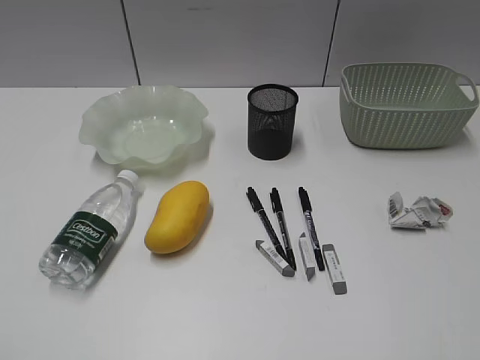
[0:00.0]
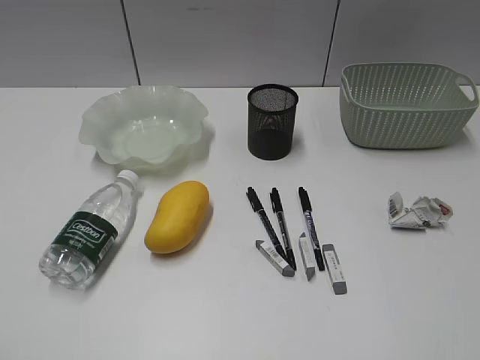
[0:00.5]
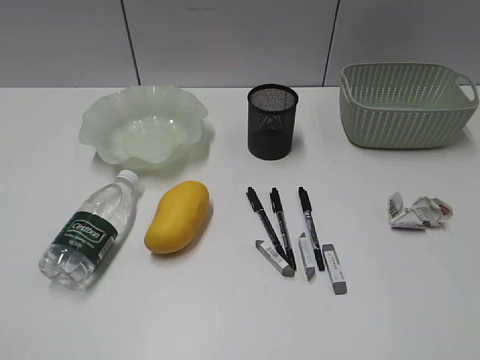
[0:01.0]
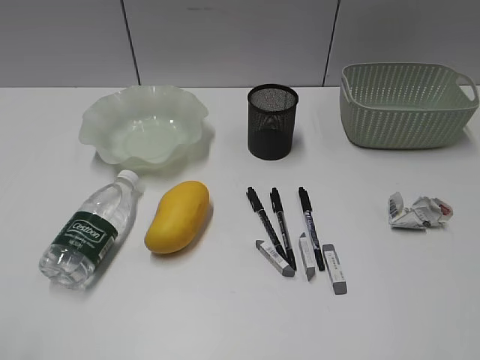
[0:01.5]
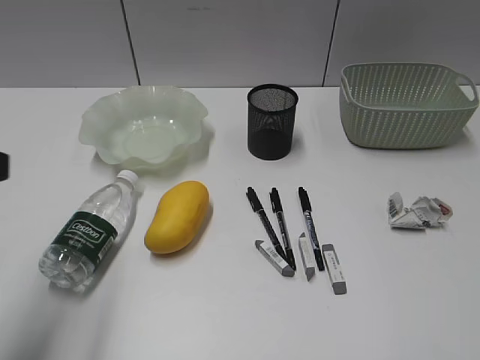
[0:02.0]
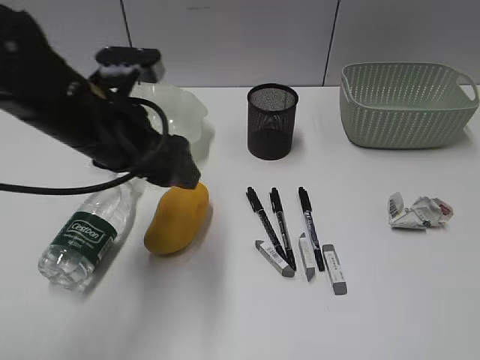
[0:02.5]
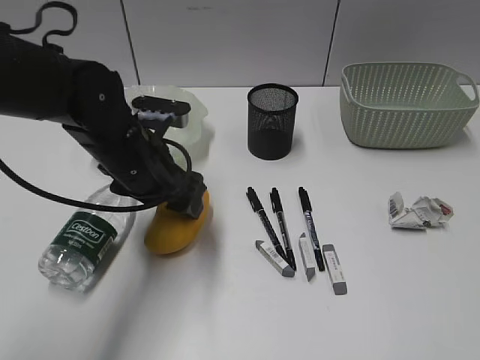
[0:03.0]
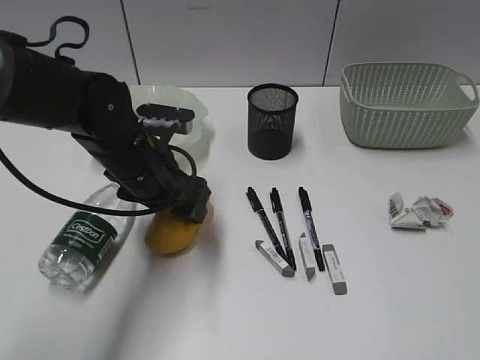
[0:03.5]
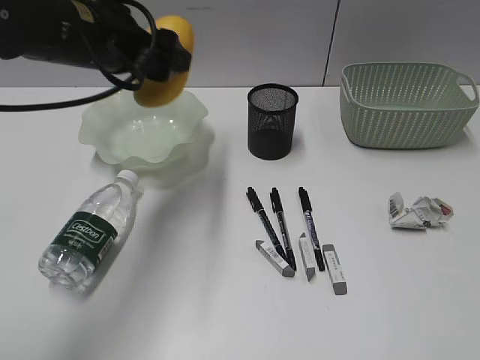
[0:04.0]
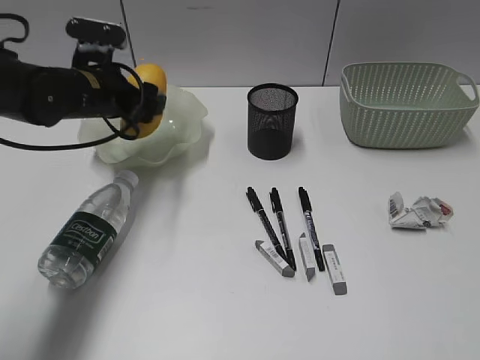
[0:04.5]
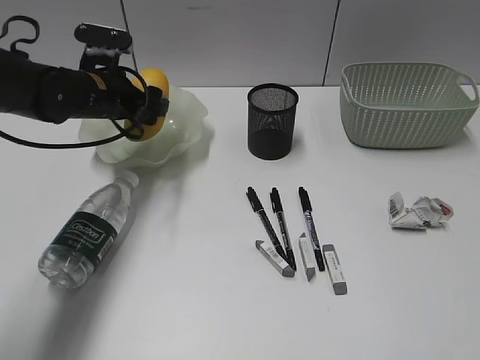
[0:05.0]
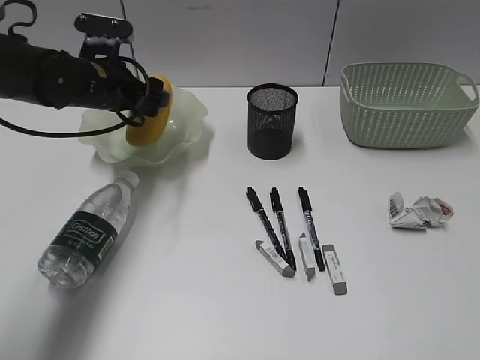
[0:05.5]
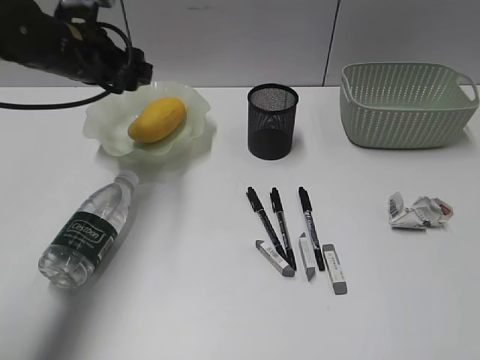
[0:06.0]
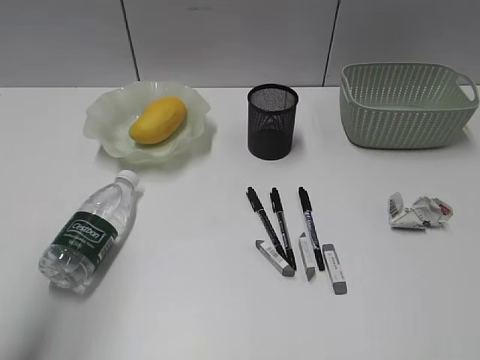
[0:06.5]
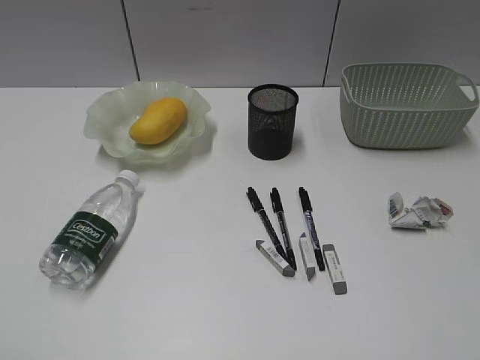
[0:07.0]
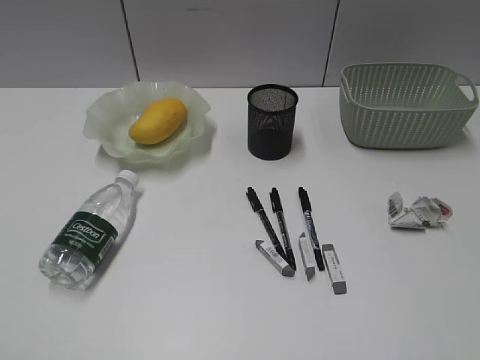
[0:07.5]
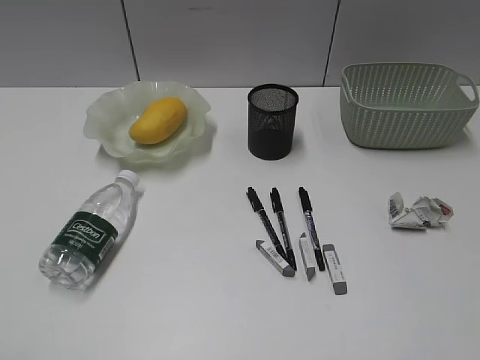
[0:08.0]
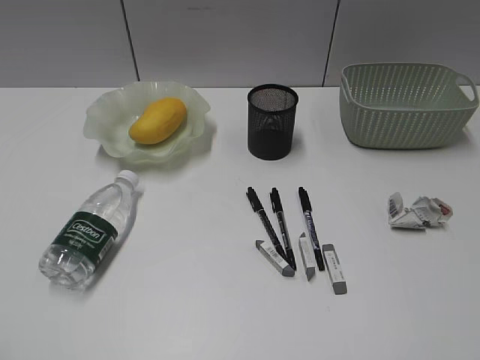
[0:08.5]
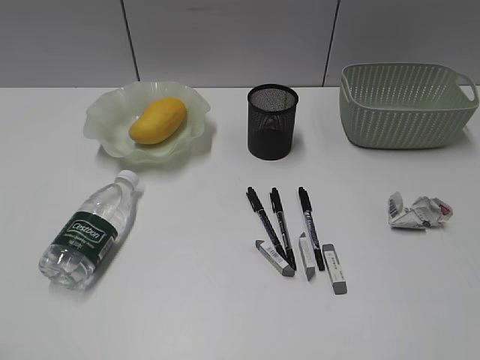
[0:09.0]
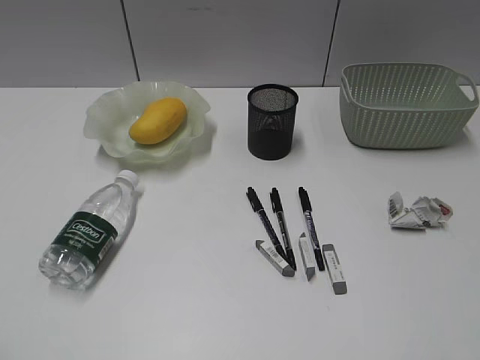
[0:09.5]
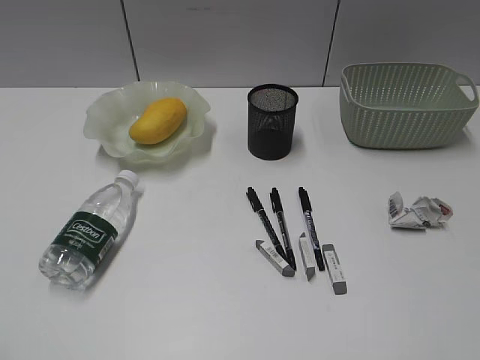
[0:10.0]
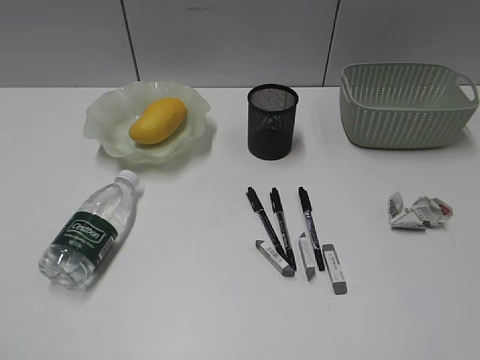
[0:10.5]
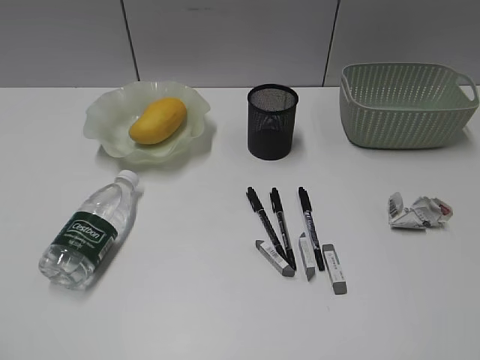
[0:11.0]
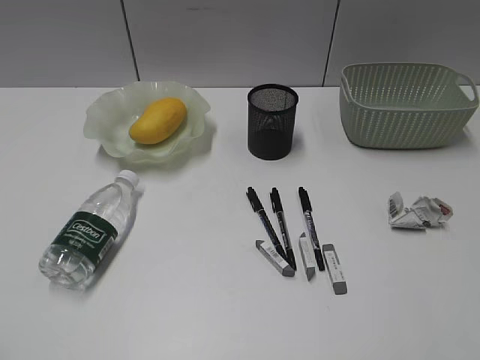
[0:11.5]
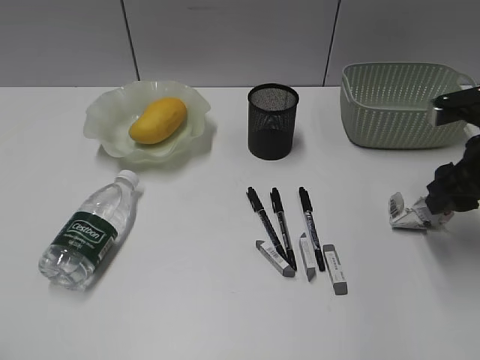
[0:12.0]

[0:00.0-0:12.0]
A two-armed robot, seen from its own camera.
Step, 0:01.5 to 0:03.0: Grasp the mango with left gripper.
Step, 0:03.5 to 0:05.5: Place the mango in the plate with left gripper.
0:02.0 to 0:04.0: The left gripper heads forward and to the right, covering some 20 cm.
0:04.0 to 0:06.0: The left gripper goes about 5 cm forward.
0:06.0 to 0:08.0: The left gripper moves backward, approximately 40 cm.
0:10.0 to 0:12.0: The right gripper travels forward by approximately 30 cm.

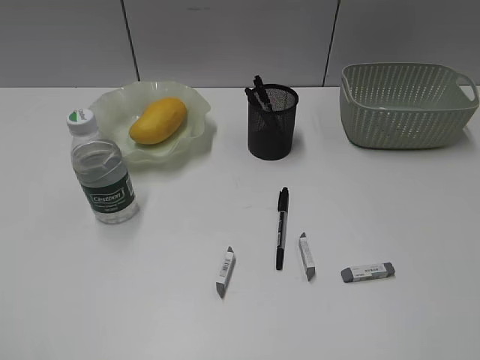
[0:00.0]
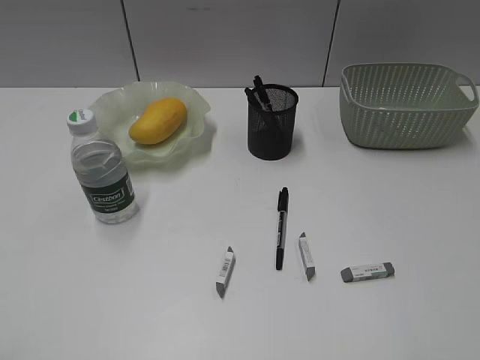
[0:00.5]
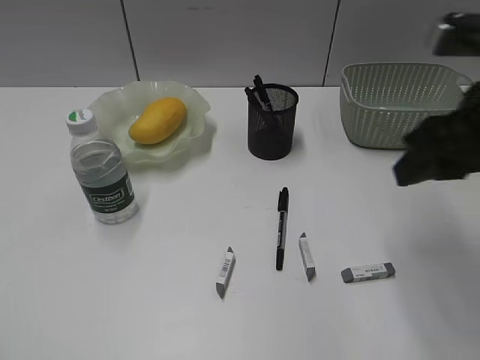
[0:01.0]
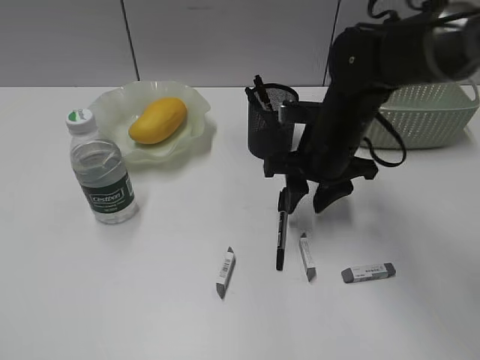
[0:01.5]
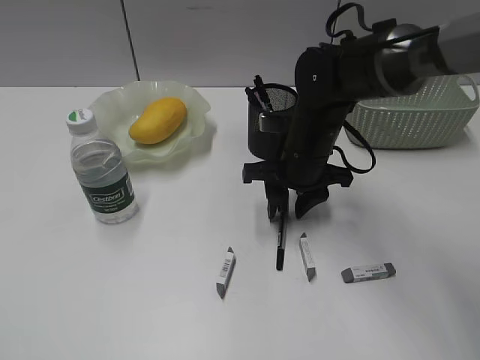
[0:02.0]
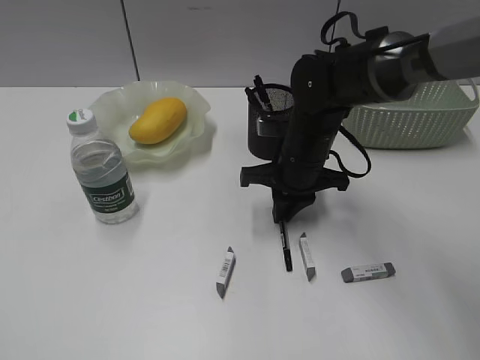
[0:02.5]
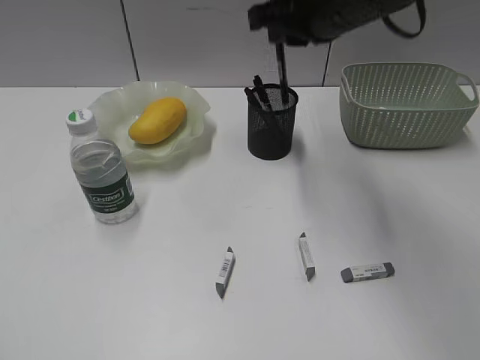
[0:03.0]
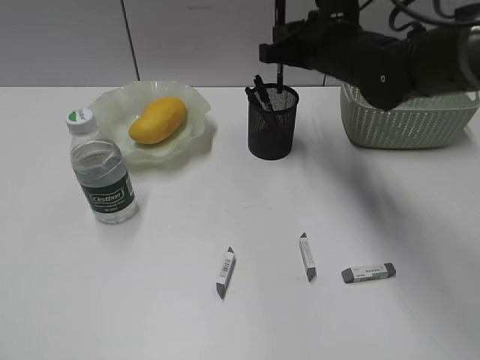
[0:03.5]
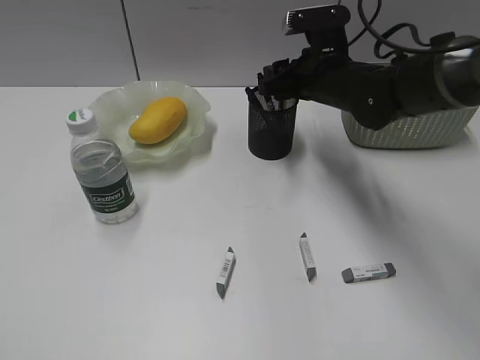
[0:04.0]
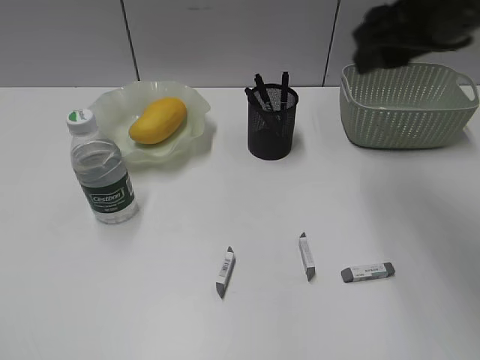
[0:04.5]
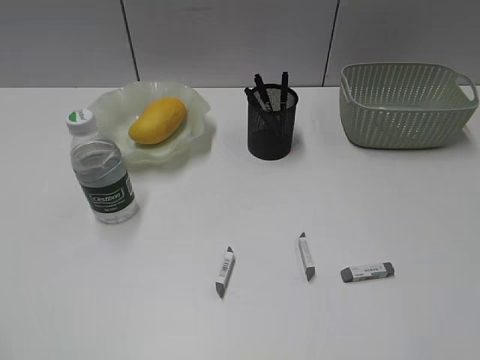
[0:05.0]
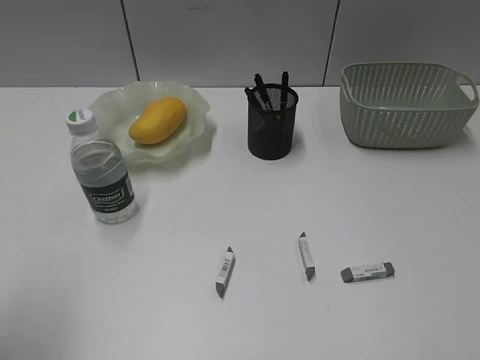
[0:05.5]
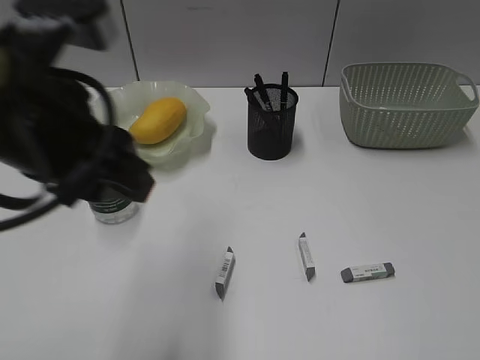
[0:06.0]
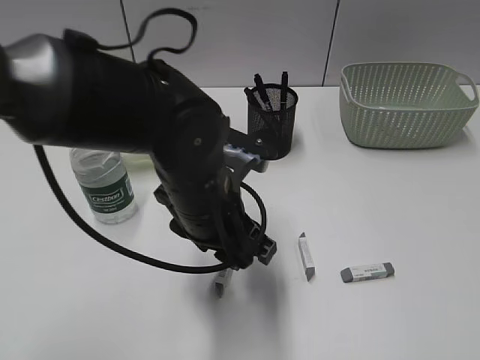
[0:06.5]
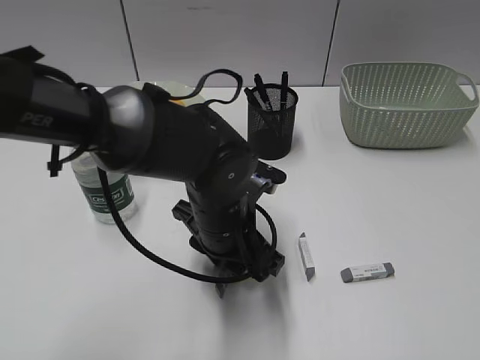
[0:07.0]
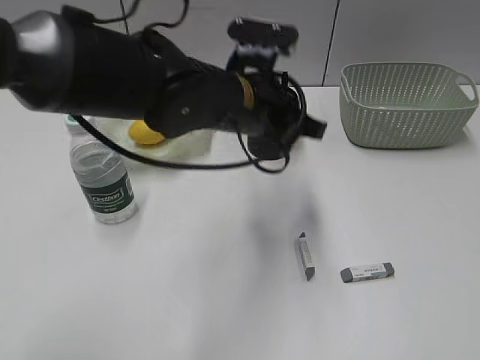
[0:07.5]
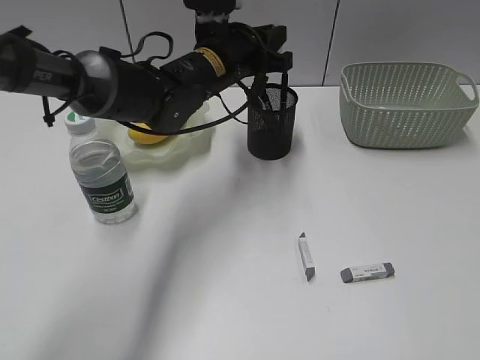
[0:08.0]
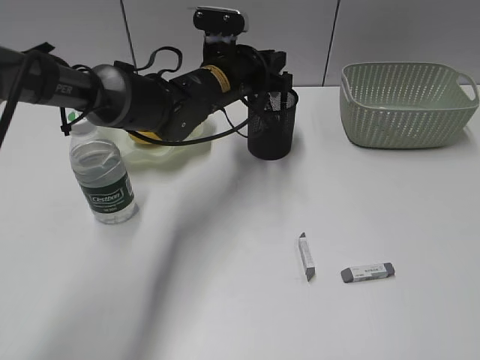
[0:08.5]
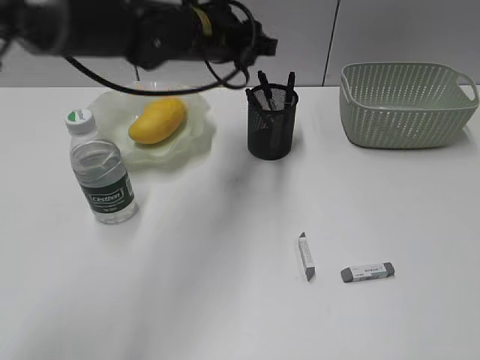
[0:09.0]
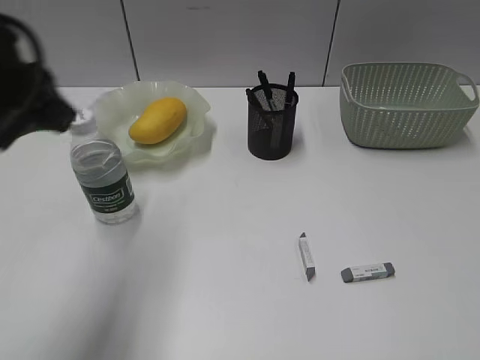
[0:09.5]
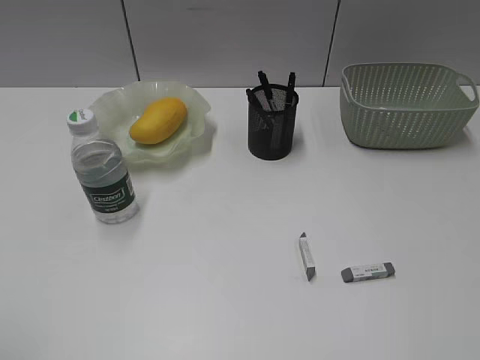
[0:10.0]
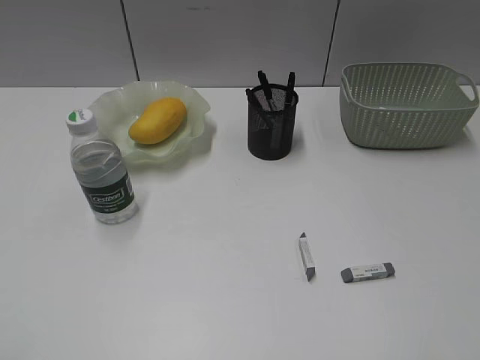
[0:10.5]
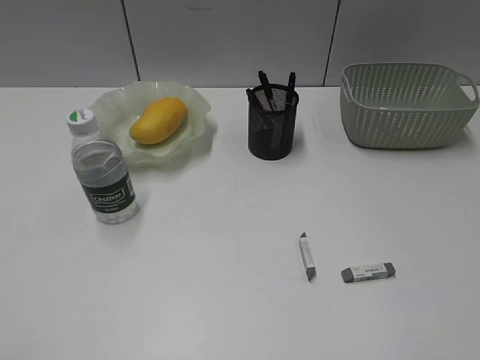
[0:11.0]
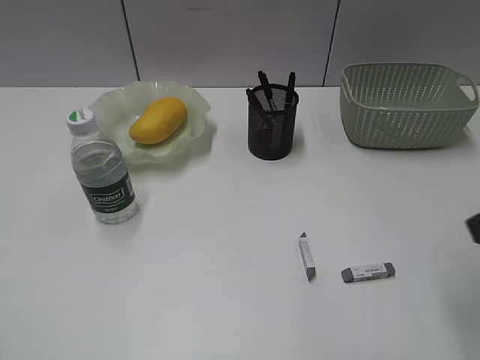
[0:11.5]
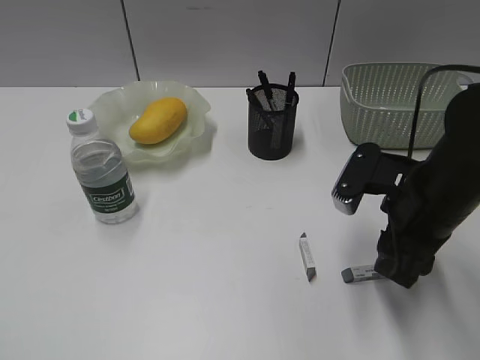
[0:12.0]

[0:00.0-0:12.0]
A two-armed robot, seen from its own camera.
Step, 0:00.0 to 0:02.5: Grasp the black pen with right gripper.
Step, 0:03.0 to 0:04.0: Place the black pen in pen holder with right gripper.
Step, 0:04.5 to 0:07.0: Grasp the eraser with left gripper.
Step, 0:07.5 to 0:08.5: Place the eraser in pen holder with left gripper.
0:00.0 to 0:02.0: The right gripper heads forward, to the left and downward, covering about 50 cm.
0:02.0 to 0:04.0: The right gripper travels forward by some 5 cm, reaches about 20 cm upward, then returns, and closes, then opens again.
0:04.0 to 0:06.0: The left gripper shifts some 30 cm to the right and forward. Meanwhile the right gripper heads backward and to the right, covering about 50 cm.
0:06.0 to 0:08.0: The left gripper heads forward, to the right and downward, covering some 30 cm, and closes up.
0:08.0 to 0:10.0: The left gripper heads backward and to the left, covering some 50 cm.
0:10.0 to 0:12.0: The right gripper shifts approximately 30 cm forward, downward and to the left.

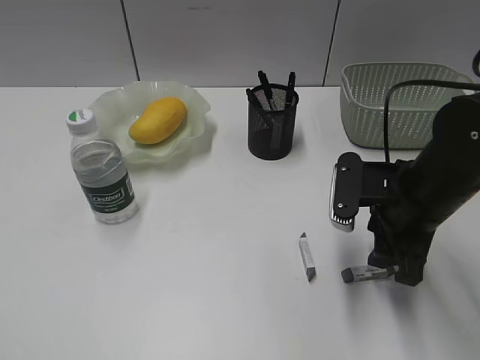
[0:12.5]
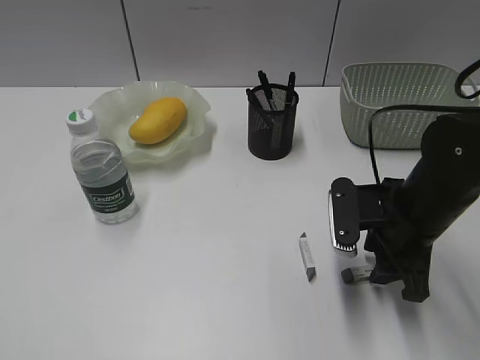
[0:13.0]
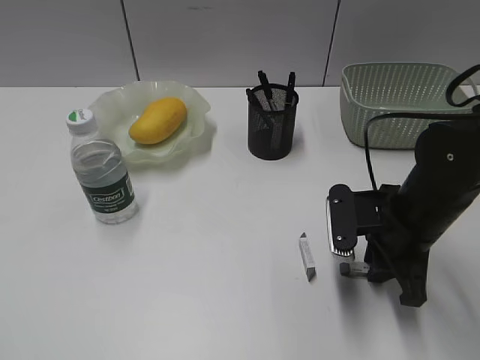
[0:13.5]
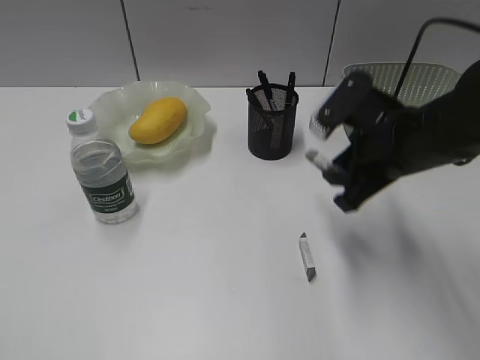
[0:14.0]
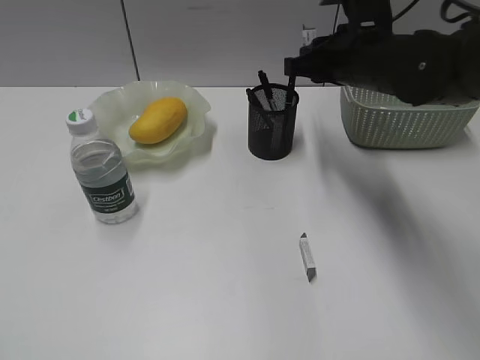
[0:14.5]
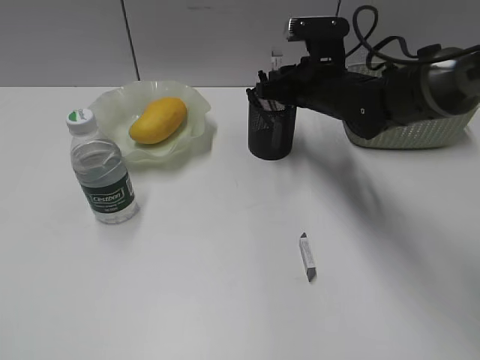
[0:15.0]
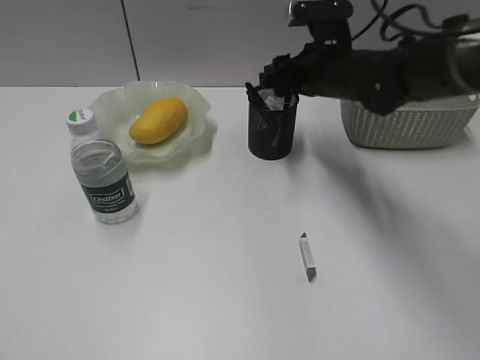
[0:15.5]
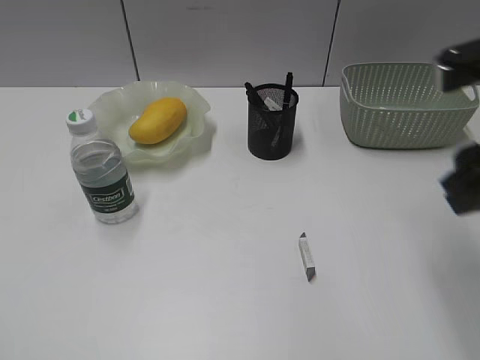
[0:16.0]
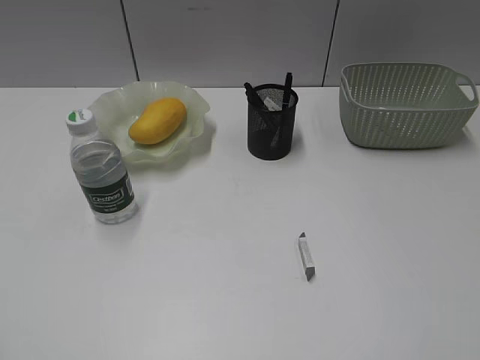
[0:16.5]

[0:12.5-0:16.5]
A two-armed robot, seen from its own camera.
Step, 0:14.0 to 0:15.5: Place the eraser in pen holder with right gripper.
0:12.5 to 0:14.5: The right gripper travels forward and upward by approximately 15 cm, and closes up.
0:14.5 to 0:16.5: The right gripper heads backward and to the right, covering roughly 40 cm, and opens up.
